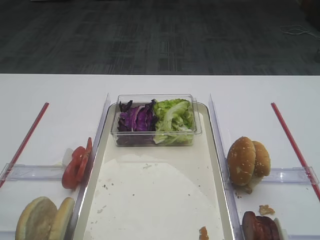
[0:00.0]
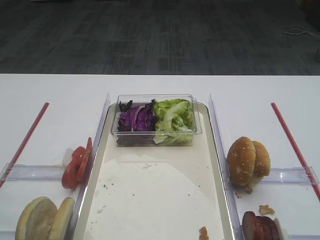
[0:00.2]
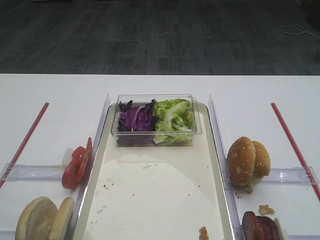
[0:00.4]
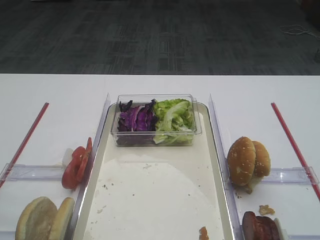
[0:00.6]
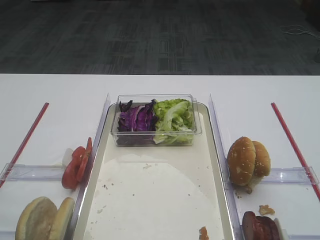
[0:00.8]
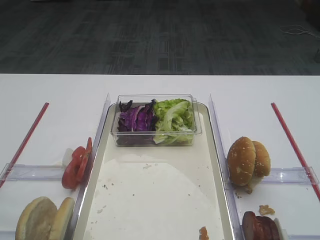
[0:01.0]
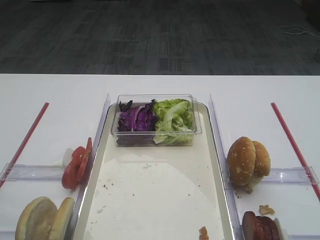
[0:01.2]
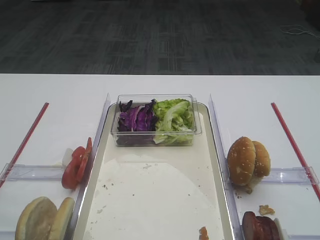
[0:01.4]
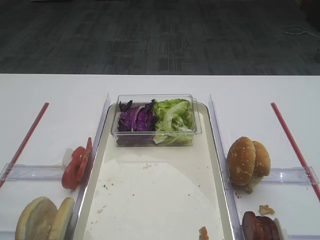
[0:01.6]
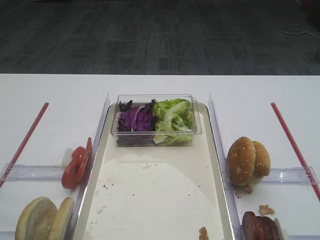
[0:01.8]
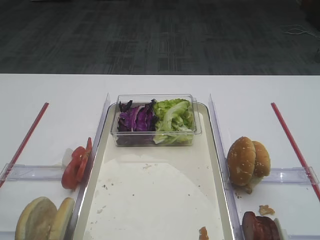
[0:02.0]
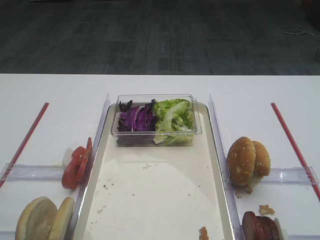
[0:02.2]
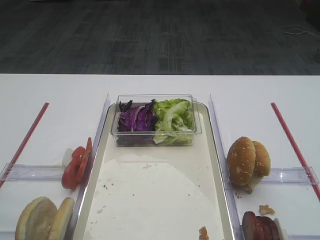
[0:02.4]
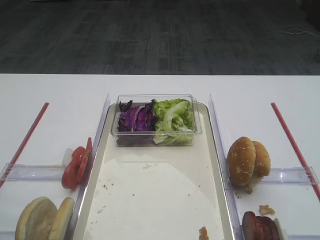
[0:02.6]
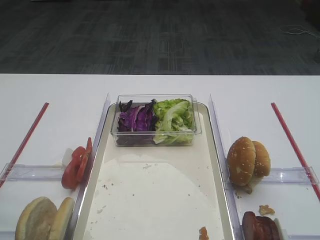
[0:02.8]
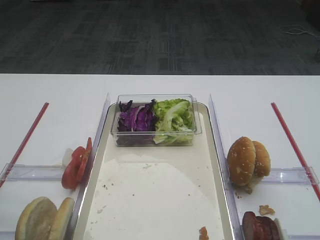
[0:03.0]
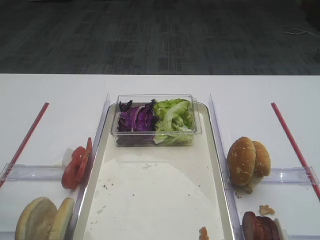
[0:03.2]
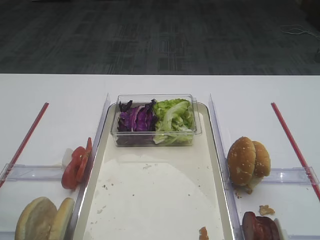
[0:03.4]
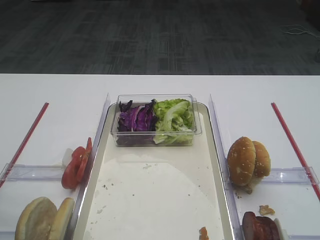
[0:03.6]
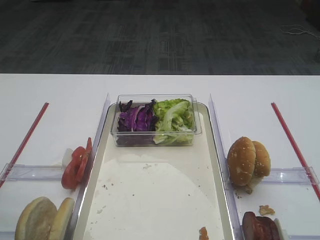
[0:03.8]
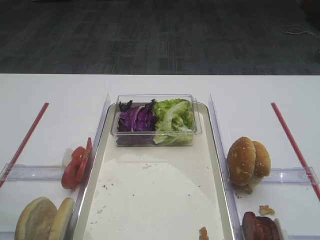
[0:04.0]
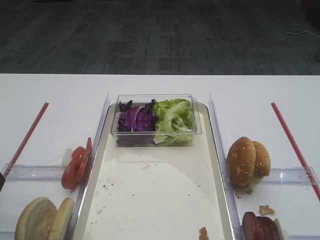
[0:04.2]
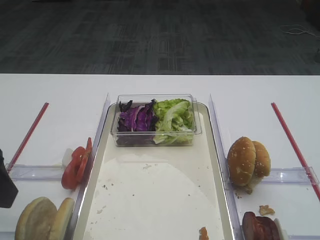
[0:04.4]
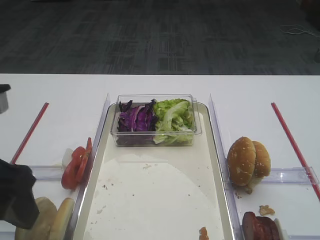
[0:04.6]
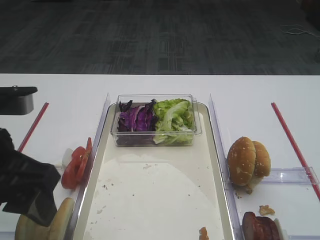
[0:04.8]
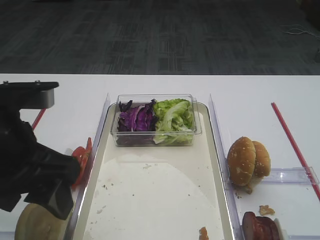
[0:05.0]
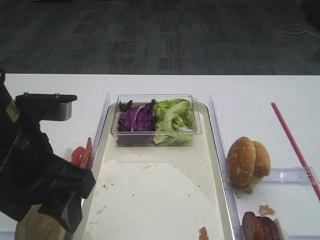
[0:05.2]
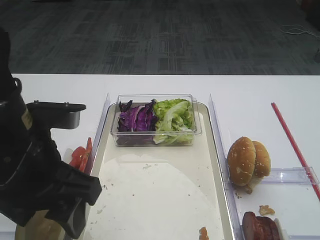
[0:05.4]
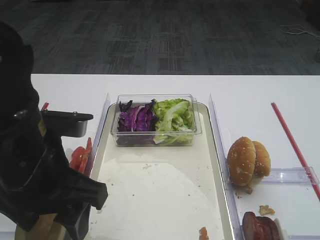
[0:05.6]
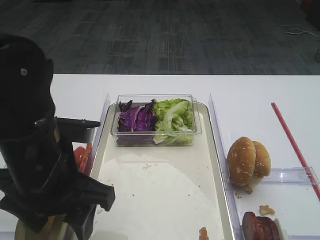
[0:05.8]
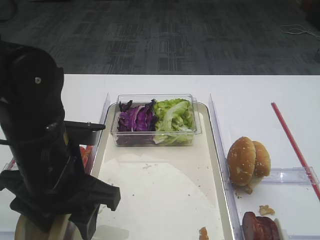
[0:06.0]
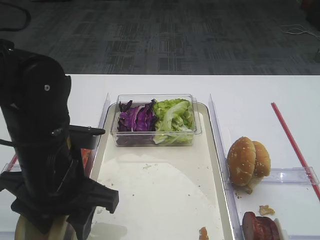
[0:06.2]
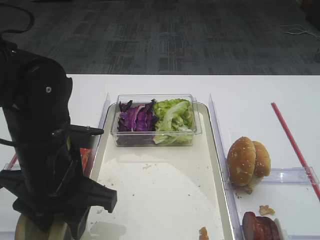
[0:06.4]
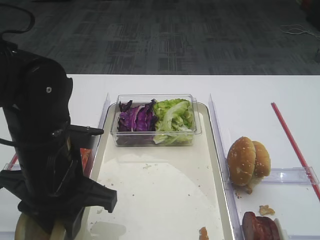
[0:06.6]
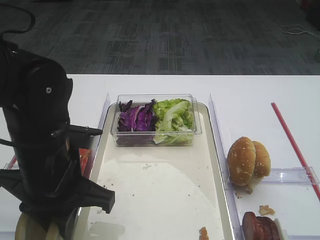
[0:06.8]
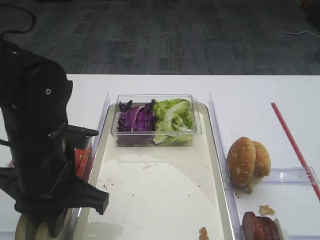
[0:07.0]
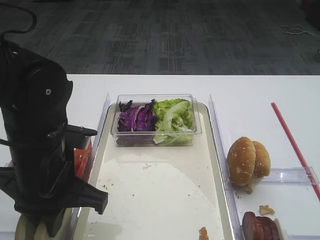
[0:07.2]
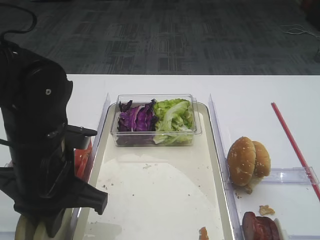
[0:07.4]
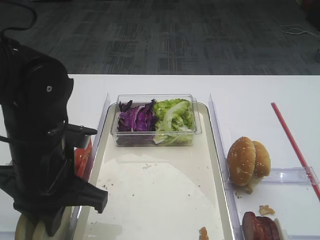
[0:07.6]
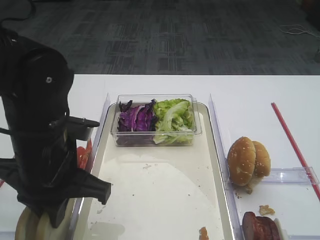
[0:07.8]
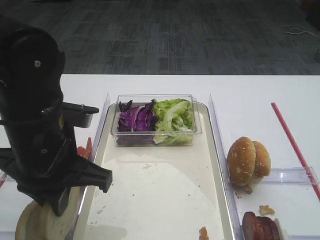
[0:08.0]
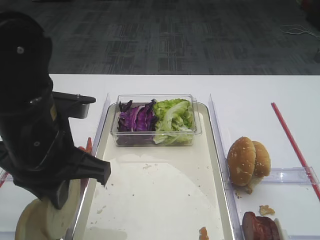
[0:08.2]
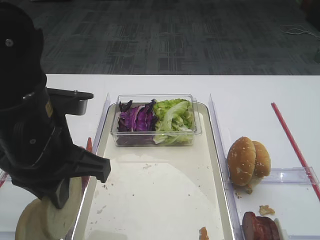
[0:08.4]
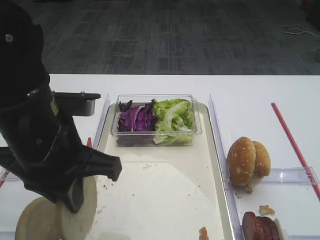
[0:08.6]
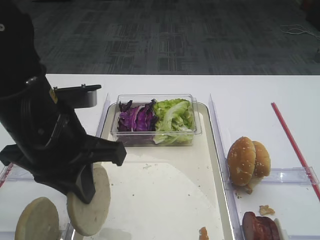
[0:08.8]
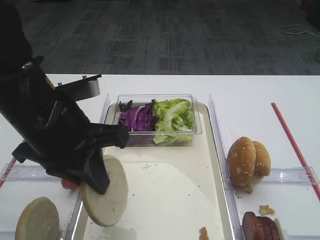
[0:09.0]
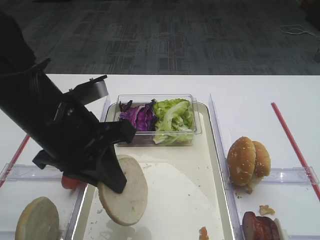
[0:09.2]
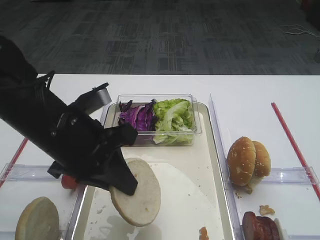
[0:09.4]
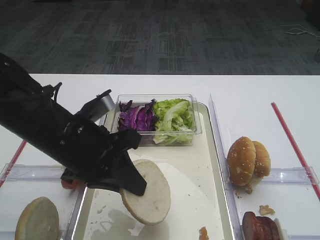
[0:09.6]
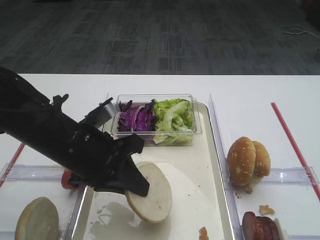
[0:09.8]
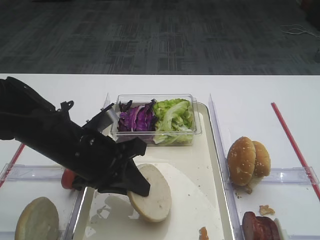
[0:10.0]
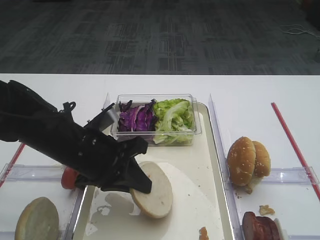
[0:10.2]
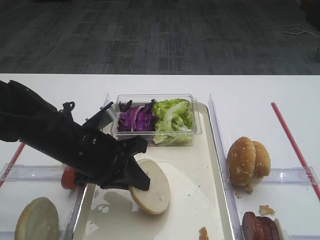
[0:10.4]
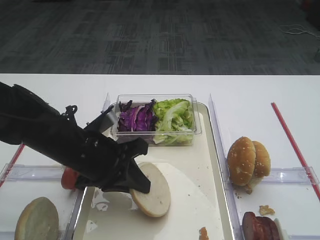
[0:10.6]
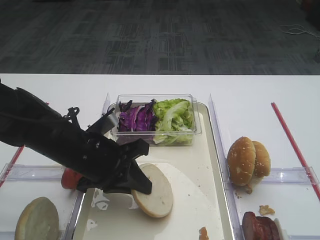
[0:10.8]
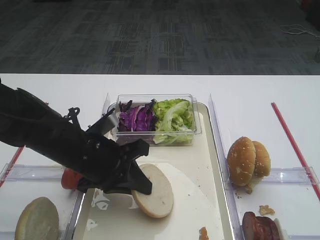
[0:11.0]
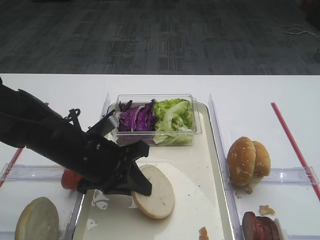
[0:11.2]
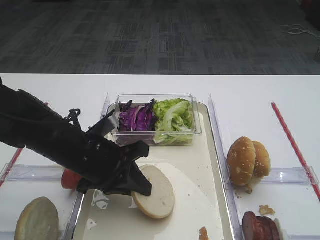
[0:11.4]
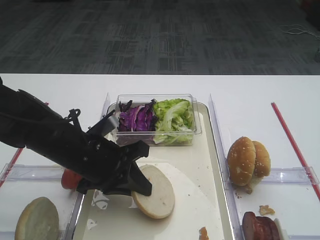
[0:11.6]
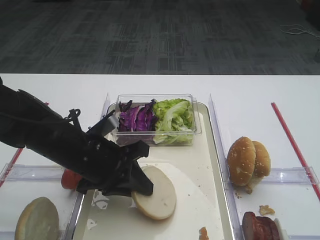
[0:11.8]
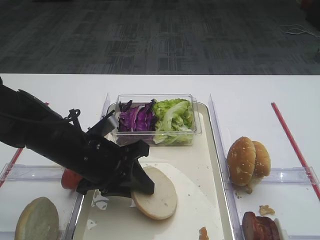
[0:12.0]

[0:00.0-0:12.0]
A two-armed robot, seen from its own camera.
Step, 0:00.0 to 0:08.2: Pick up the bread slice with the left gripper.
0:03.0 to 0:04.4: The left gripper changes place by approximately 5 cm.
0:04.4 to 0:06.0: The left gripper heads to the right, downward and forward, covering approximately 15 cm.
0:06.0 to 0:07.6: The left gripper closes up.
0:07.6 to 0:09.0: The left gripper heads upward, covering some 5 cm.
0:09.0 to 0:10.4: The left gripper travels downward by about 10 cm.
0:10.4 to 0:12.0: There are only small adjustments of the grippers.

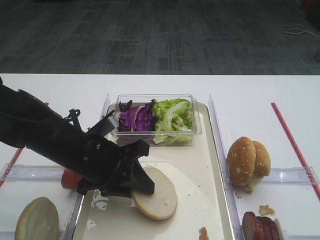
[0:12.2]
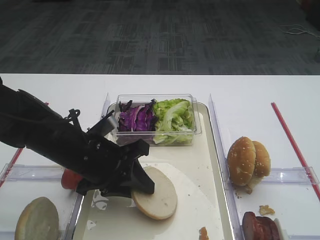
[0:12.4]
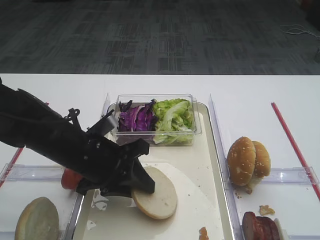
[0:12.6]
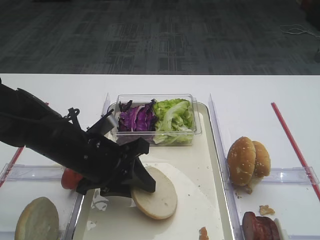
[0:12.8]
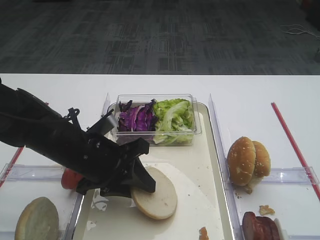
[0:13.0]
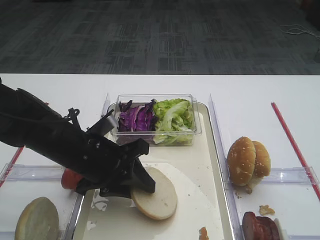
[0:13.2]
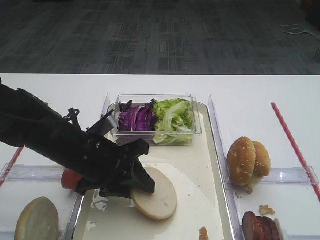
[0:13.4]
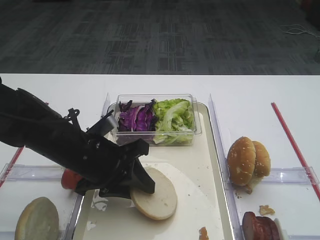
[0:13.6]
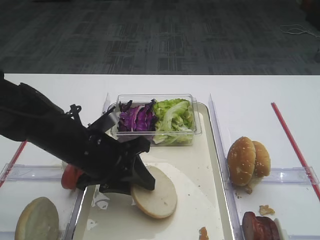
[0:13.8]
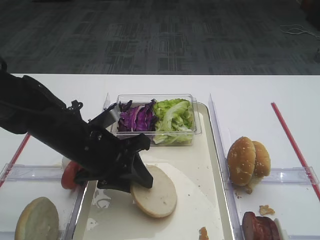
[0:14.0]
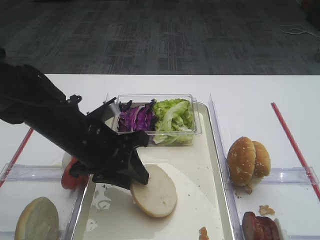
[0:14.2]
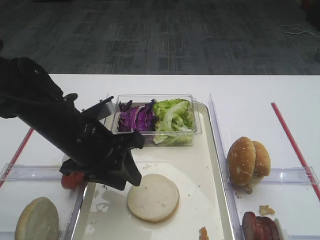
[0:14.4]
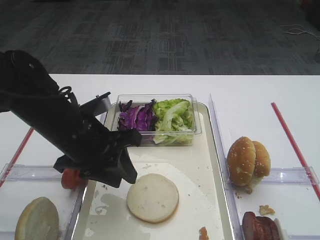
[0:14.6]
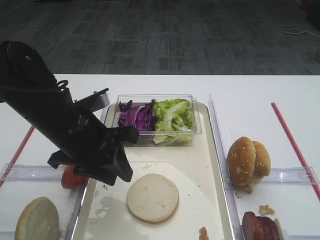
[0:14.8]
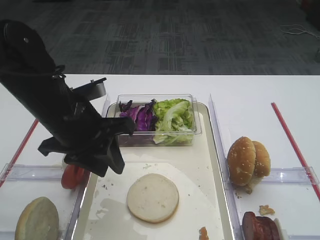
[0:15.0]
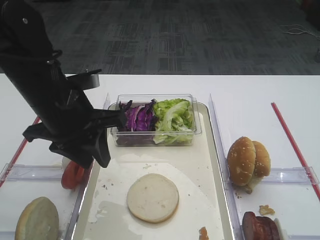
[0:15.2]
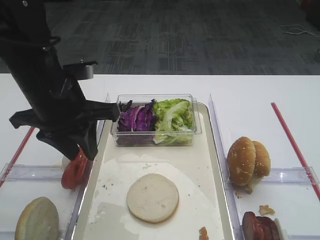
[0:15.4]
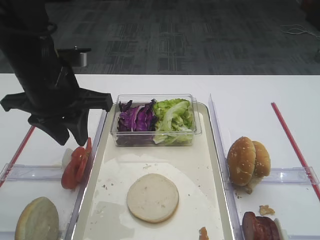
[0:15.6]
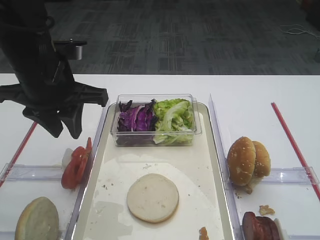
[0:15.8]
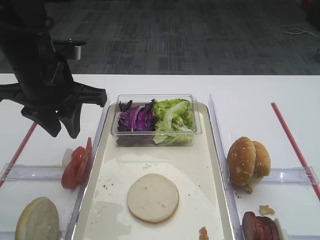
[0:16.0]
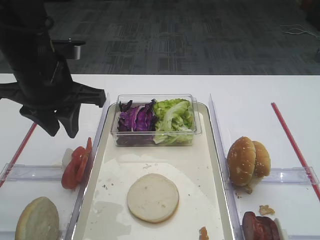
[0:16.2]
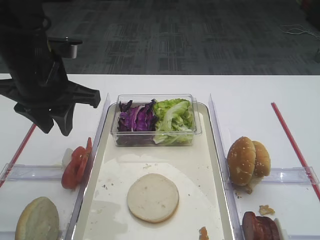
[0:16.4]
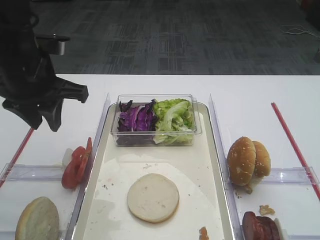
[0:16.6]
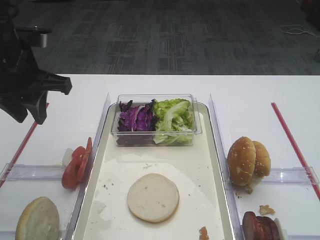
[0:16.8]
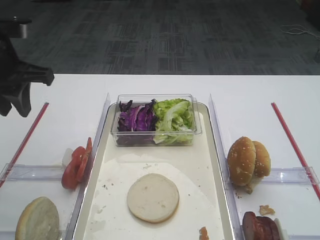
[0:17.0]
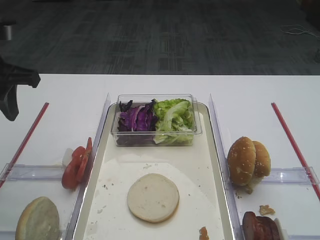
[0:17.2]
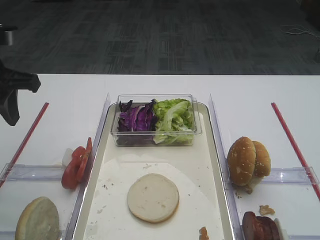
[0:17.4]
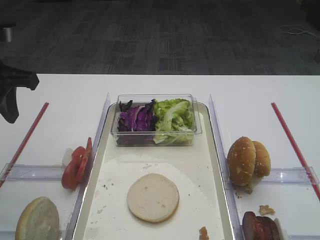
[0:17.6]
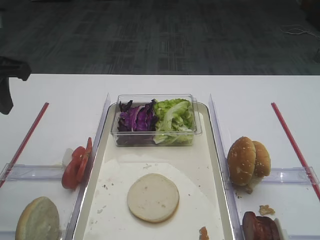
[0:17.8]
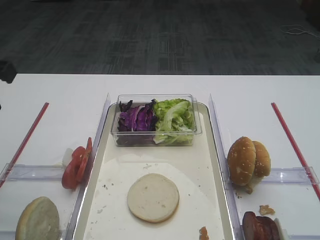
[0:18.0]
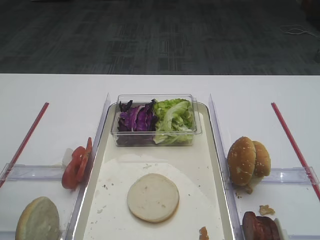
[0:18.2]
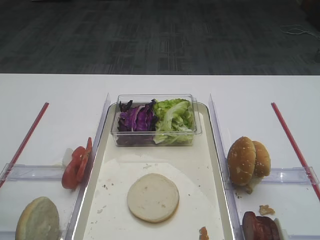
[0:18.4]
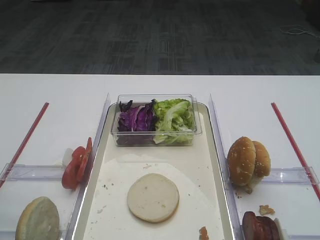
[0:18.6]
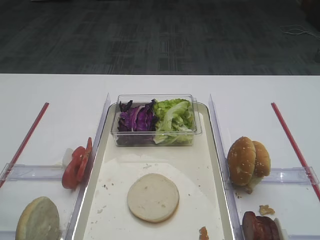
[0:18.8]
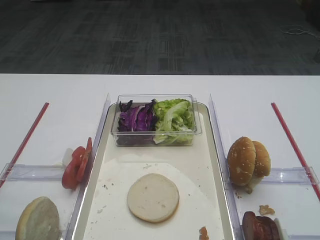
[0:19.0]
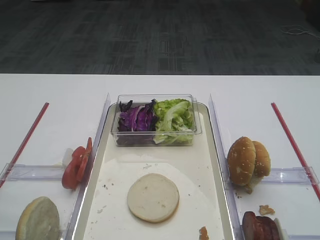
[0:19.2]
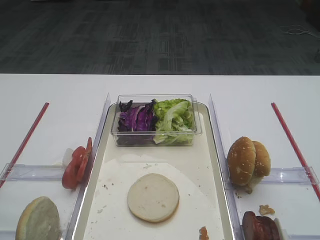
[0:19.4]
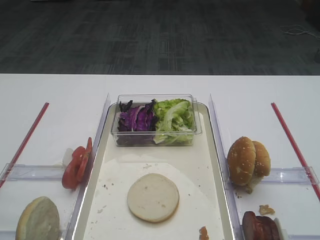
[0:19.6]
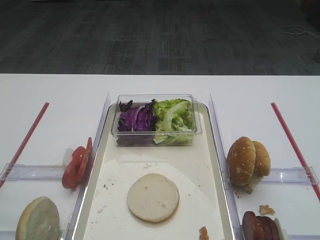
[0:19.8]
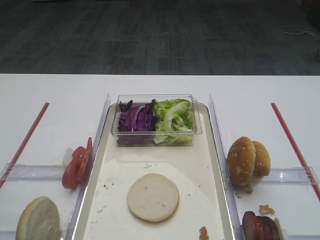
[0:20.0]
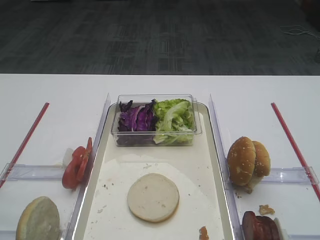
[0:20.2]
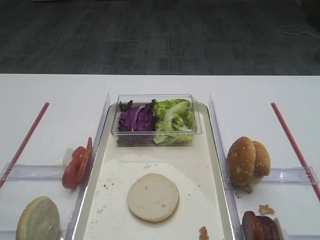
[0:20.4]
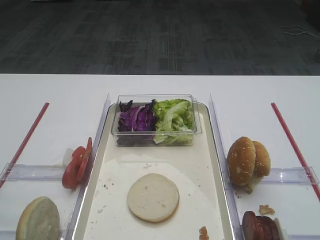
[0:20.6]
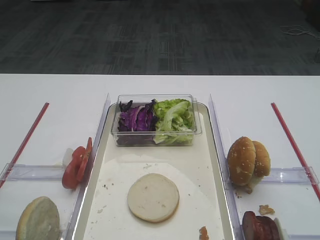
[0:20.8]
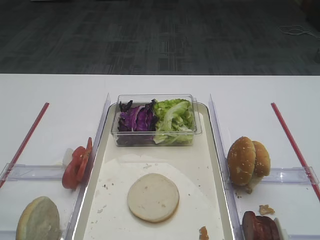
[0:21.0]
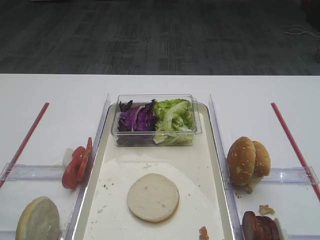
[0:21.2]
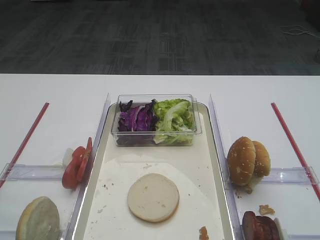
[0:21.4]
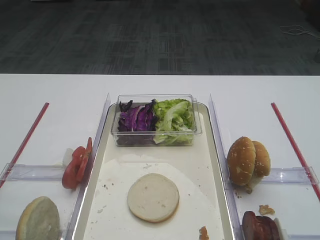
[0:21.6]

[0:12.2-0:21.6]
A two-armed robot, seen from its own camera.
Step, 0:12.2 to 0:14.6: Place the bread slice on the tray with the left gripper.
0:12.2 to 0:13.8: Both grippers stay put.
0:13.8 to 0:15.4: The left gripper shifts roughly 10 cm upward.
0:15.4 to 0:17.0: The left gripper moves to the left, some 10 cm.
0:17.0 to 0:18.4: The left gripper goes roughly 15 cm backward.
0:20.0 to 0:21.6: Both grippers stay about where they are.

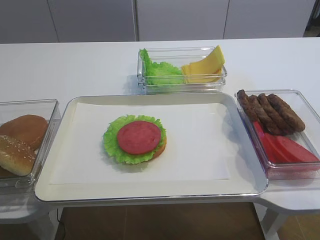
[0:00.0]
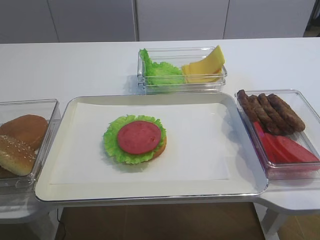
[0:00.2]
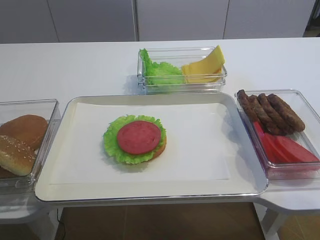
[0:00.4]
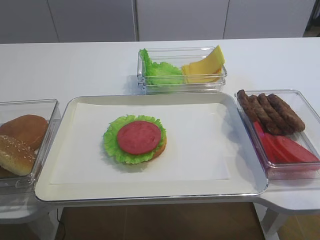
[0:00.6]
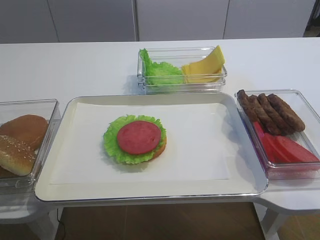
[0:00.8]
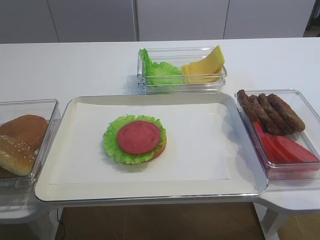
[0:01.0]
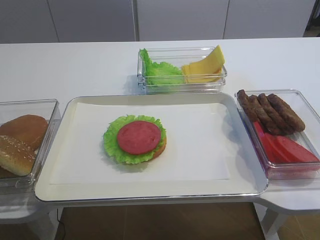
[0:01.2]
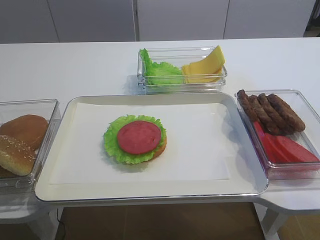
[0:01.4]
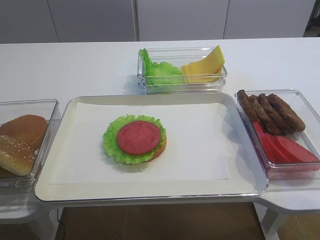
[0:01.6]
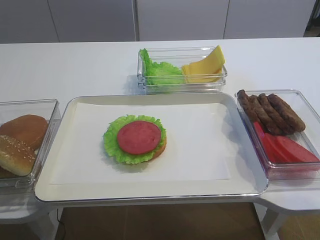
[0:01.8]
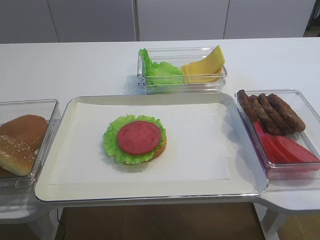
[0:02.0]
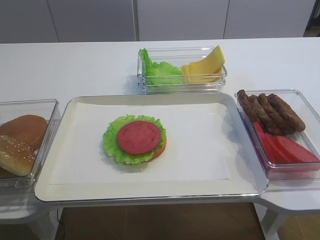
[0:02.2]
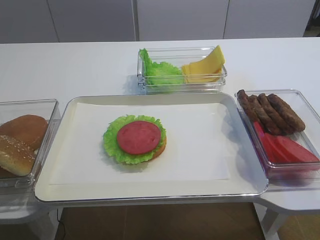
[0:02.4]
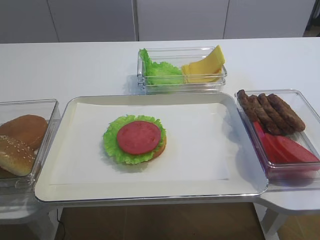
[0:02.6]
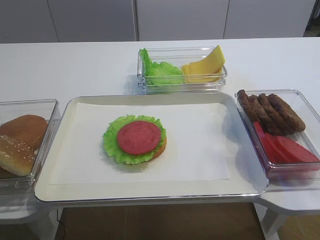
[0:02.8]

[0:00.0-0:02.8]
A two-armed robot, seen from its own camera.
0:01.4 to 0:02.8: The right gripper shifts some 10 cm forward and upward.
